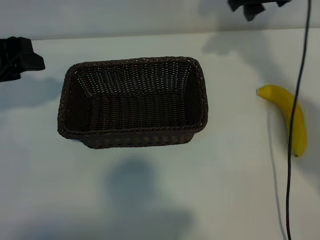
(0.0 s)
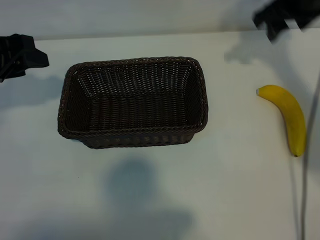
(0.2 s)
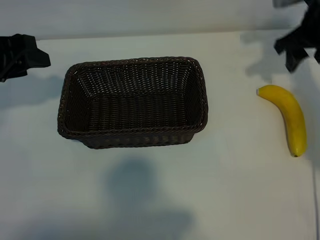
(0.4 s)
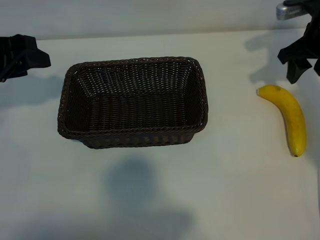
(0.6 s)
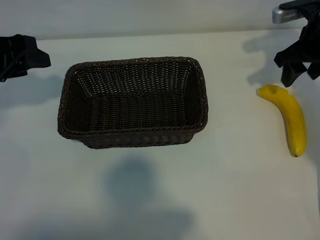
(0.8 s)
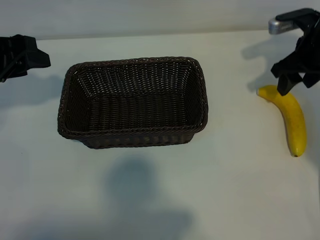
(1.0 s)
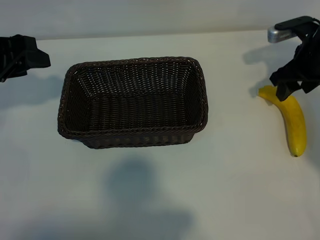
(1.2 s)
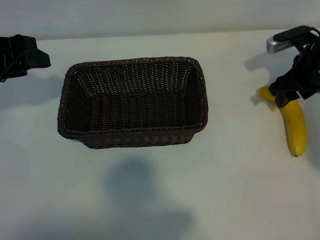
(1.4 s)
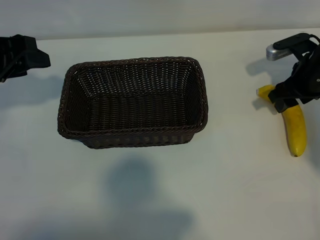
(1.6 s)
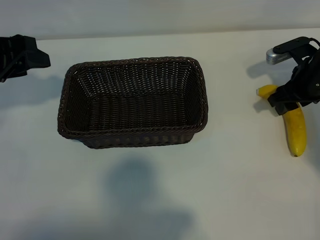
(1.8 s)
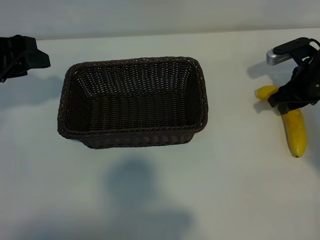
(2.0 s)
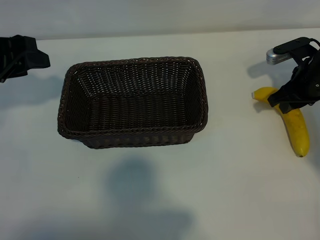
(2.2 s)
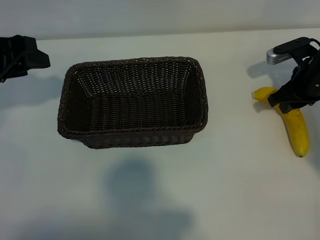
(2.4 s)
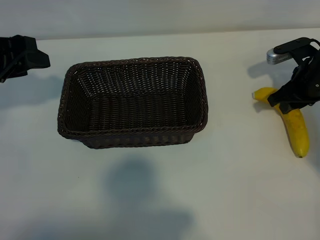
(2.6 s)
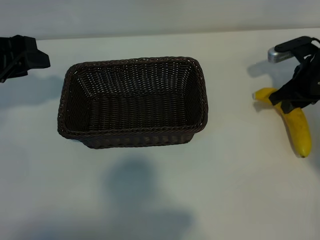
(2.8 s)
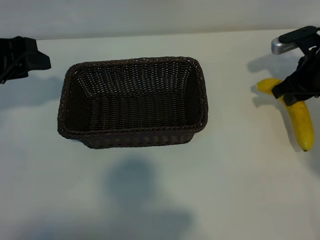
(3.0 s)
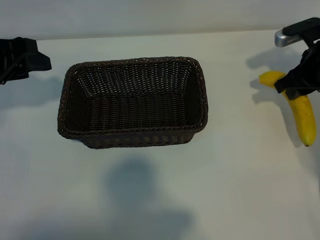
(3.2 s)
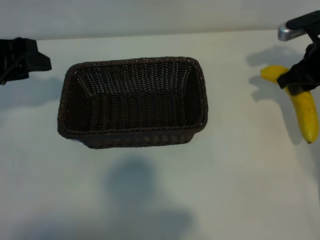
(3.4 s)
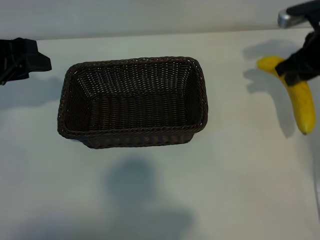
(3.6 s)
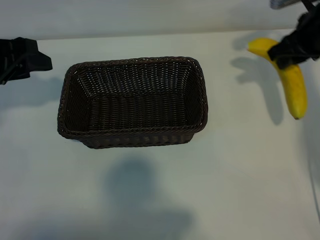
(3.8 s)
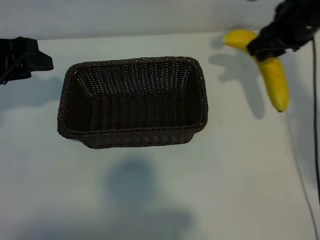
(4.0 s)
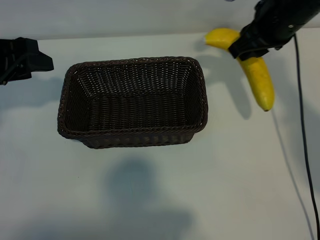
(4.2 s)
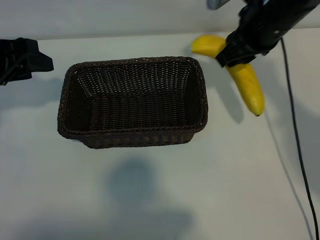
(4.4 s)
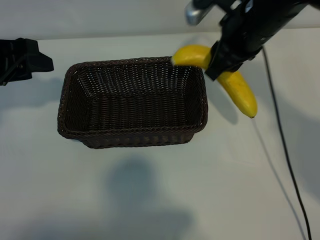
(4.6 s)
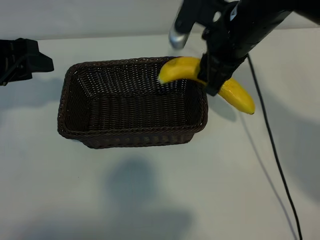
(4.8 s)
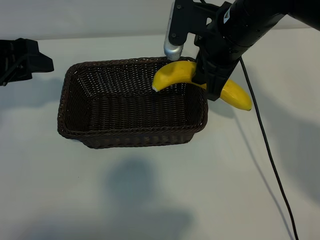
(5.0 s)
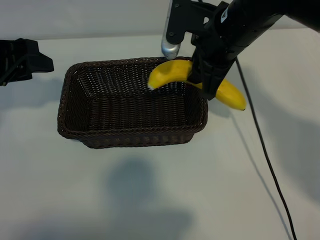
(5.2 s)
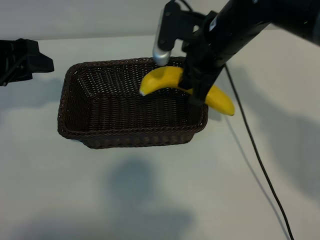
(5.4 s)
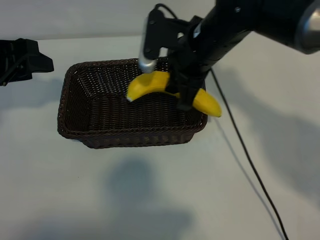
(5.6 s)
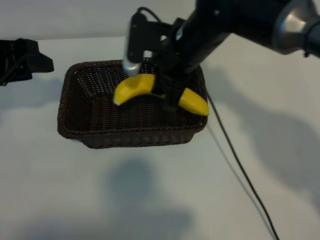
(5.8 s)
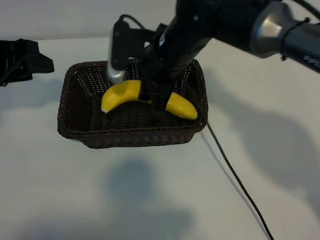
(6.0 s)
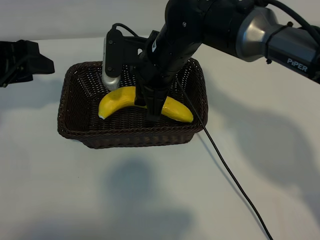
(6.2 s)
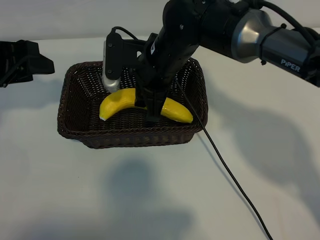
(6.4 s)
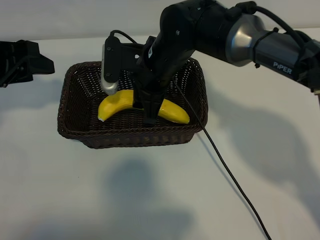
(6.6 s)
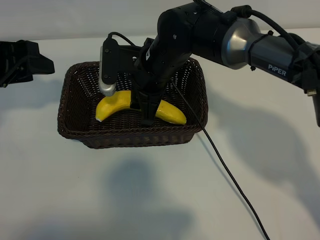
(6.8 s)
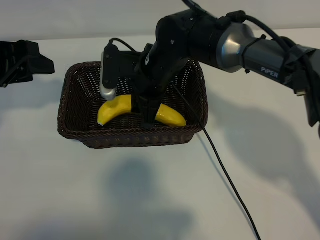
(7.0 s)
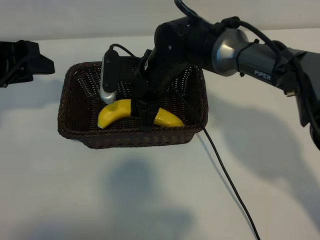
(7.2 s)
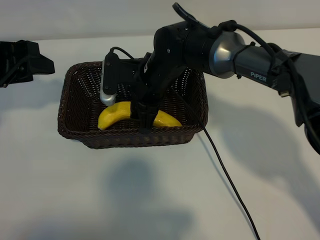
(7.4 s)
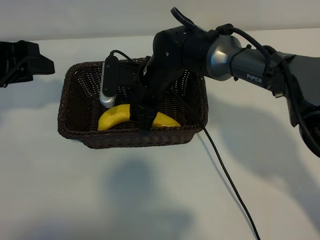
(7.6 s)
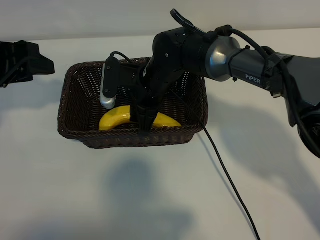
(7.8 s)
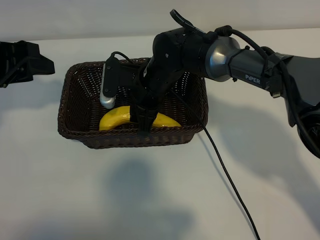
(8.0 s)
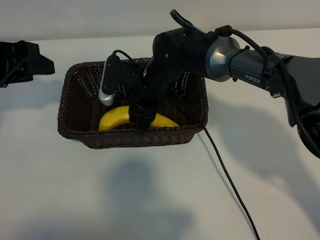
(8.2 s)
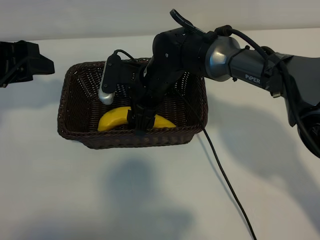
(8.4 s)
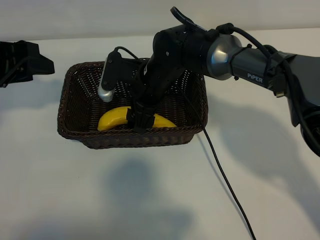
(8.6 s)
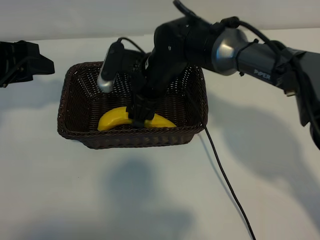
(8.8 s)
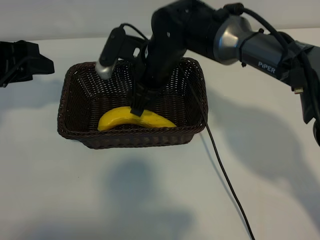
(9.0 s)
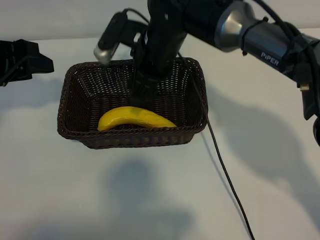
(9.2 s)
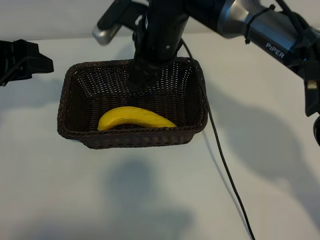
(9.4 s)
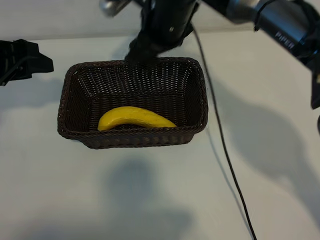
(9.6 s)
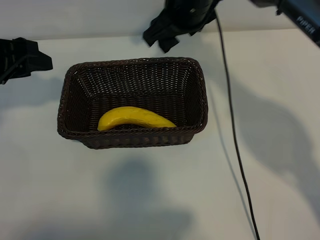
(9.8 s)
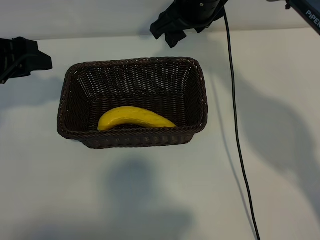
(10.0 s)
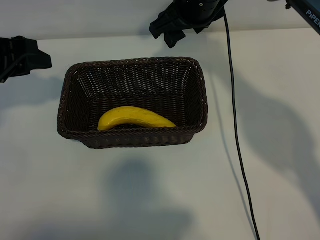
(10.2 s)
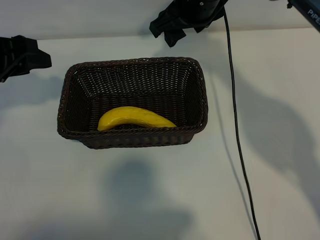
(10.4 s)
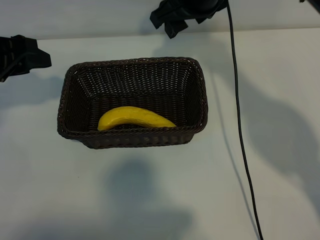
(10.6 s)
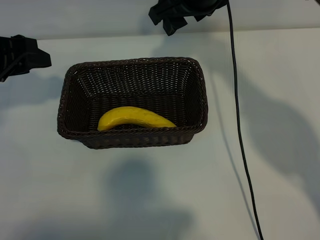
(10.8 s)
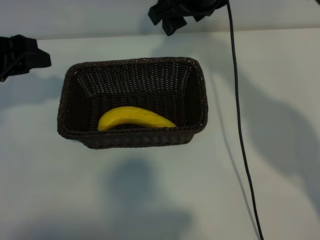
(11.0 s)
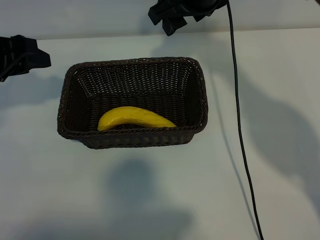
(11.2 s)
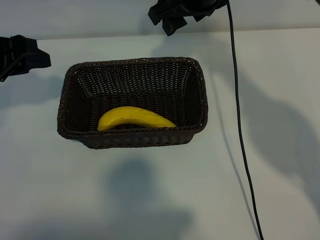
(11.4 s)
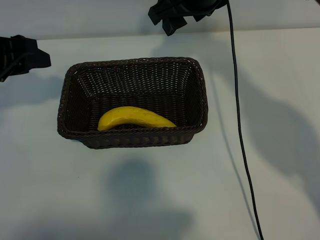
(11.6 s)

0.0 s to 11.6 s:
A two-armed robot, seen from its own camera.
Task of the whole recording: pick up the banana and put it into the basket.
Step, 0.0 to 2.2 s: Grasp the banana with right gripper.
Step, 2.6 to 9.0 s: Place the banana in the basket with right gripper.

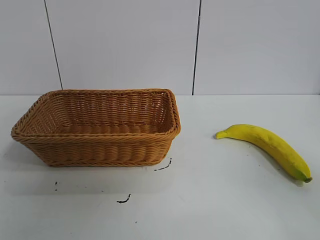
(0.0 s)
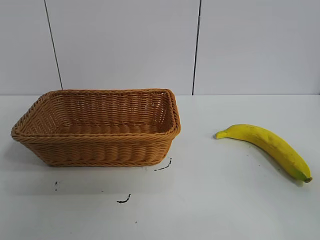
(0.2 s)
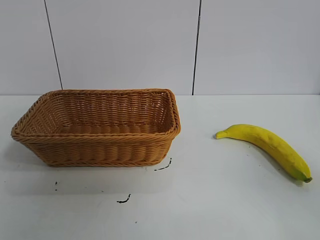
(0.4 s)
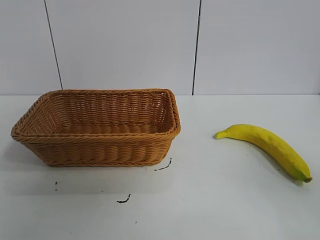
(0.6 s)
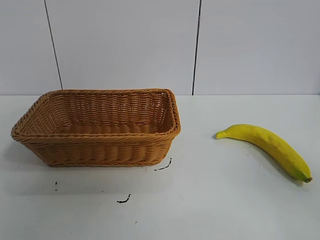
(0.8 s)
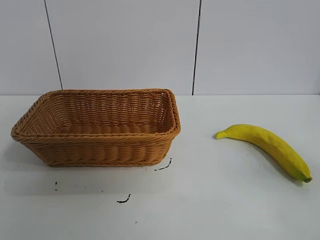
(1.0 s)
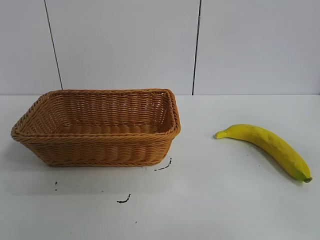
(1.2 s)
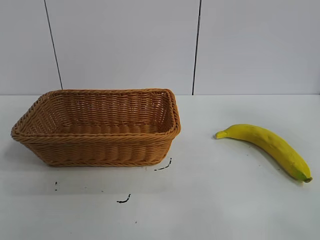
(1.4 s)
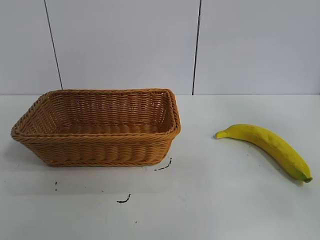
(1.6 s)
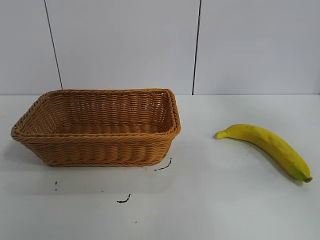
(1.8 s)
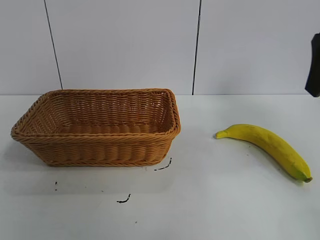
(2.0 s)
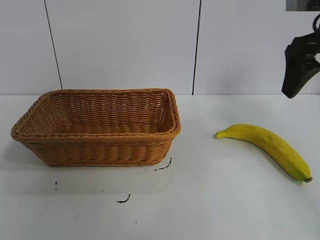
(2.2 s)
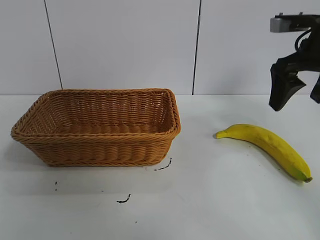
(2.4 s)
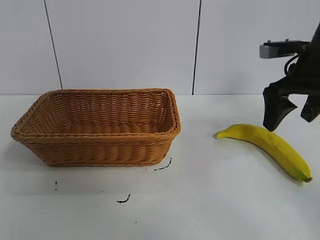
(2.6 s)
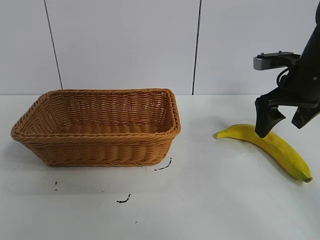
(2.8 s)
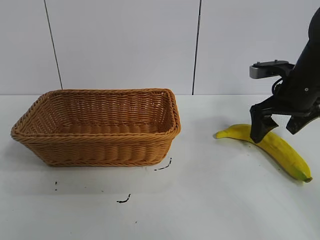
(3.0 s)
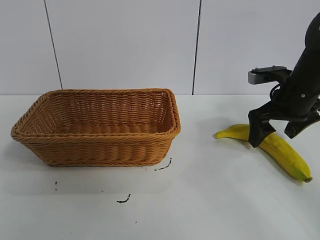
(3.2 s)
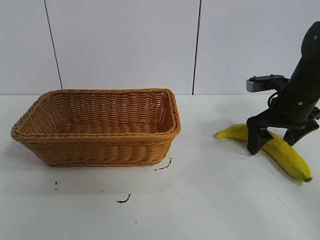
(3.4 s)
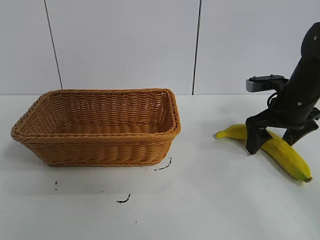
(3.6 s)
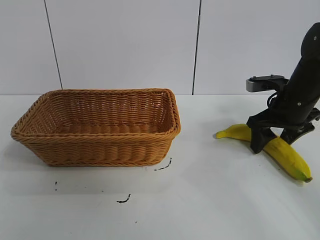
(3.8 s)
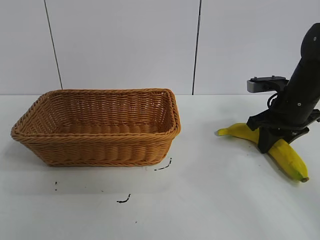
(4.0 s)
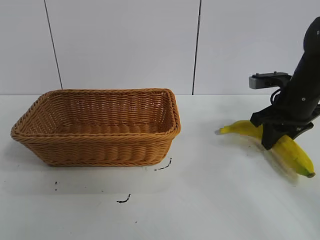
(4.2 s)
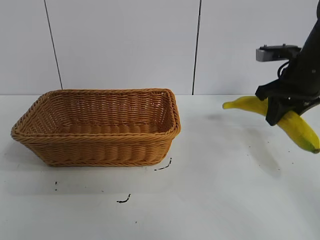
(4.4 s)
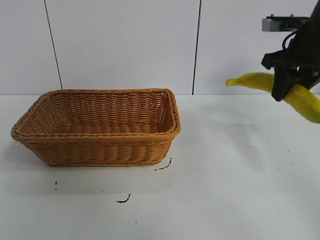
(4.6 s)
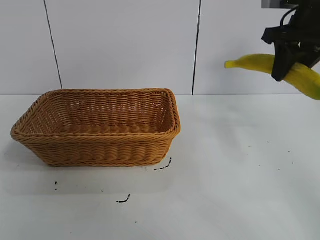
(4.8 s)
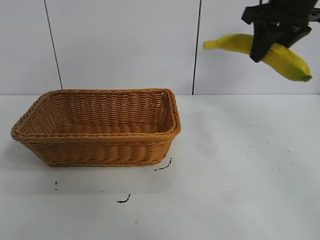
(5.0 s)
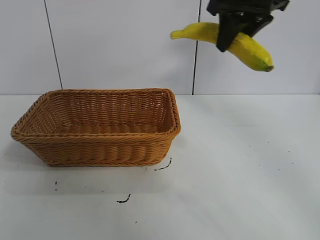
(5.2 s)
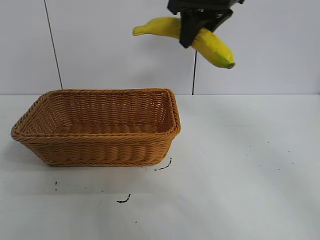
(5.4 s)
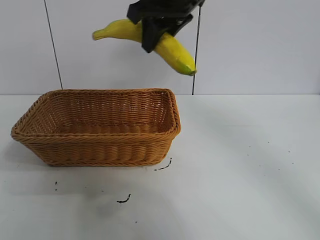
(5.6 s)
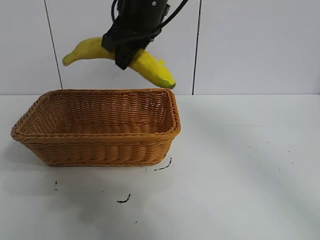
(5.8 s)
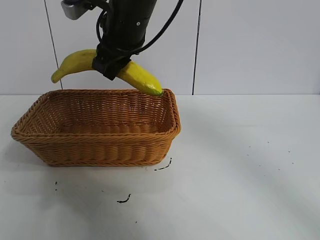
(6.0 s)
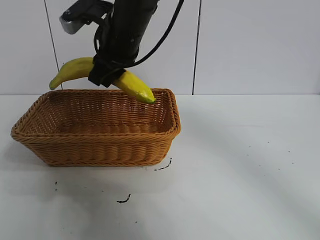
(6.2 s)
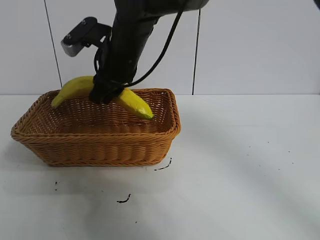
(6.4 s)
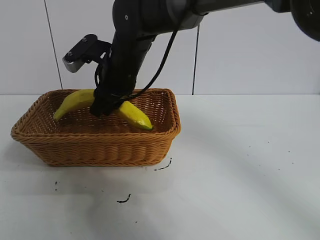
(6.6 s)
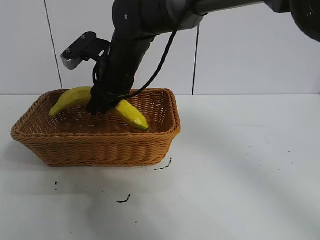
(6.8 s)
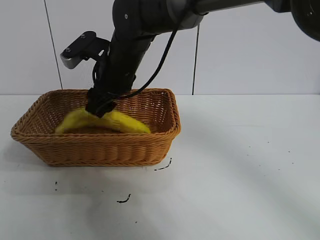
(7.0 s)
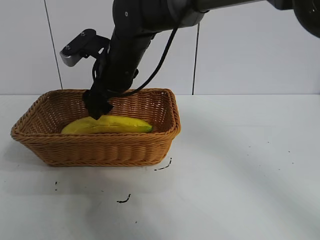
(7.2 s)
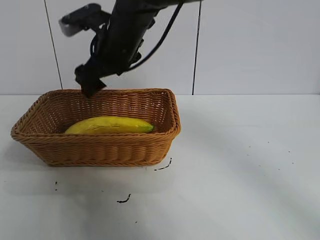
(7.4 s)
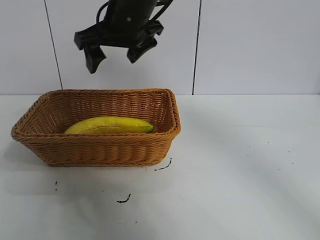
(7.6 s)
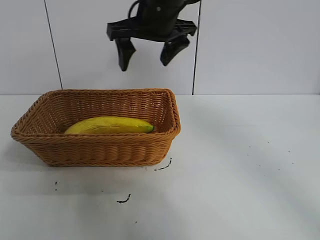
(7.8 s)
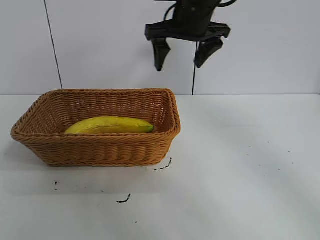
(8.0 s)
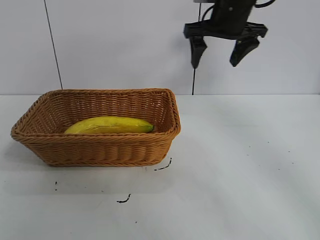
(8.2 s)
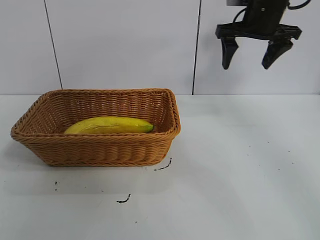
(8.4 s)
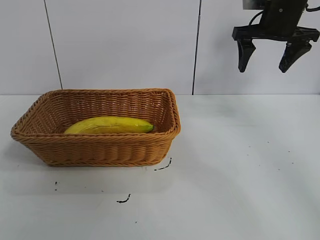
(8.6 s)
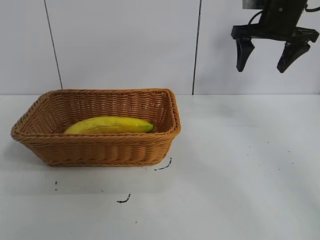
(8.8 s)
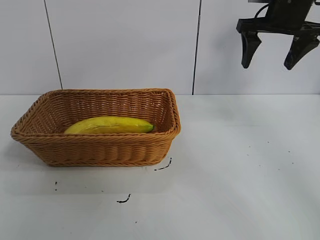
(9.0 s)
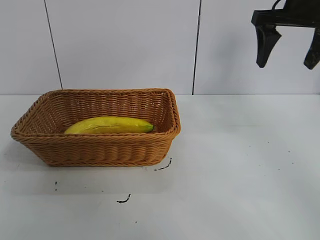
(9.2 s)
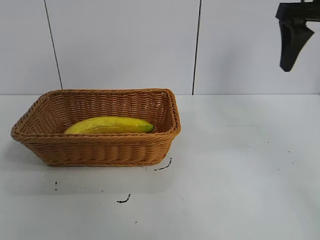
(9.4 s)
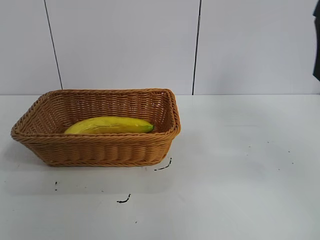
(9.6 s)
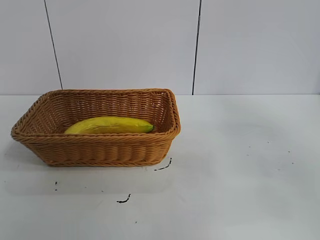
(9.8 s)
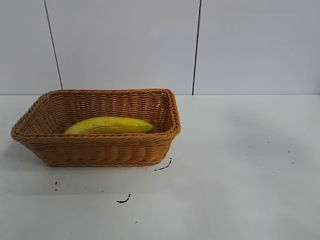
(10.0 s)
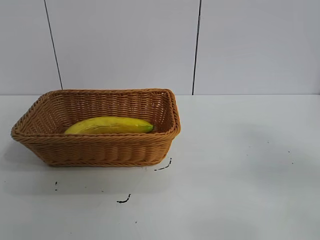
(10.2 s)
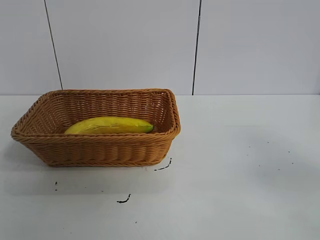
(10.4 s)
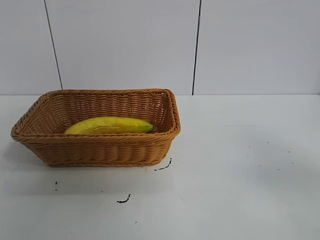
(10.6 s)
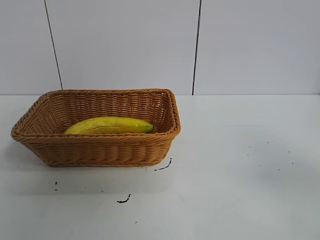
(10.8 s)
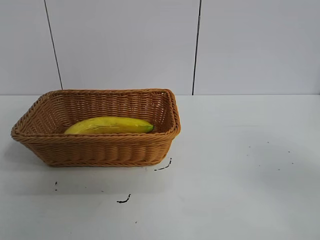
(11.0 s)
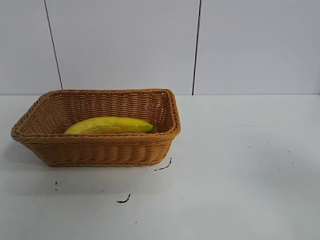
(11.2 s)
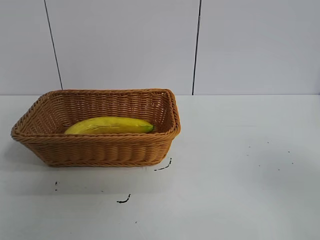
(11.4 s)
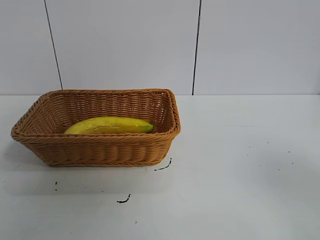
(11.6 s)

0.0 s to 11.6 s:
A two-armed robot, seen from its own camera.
Task of the whole recording: pick up the banana and put it into the basket.
Step, 0.8 to 4.0 s: Grasp the banana with right gripper.
Step, 4.2 to 7.2 s: Place the banana in the basket with right gripper.
